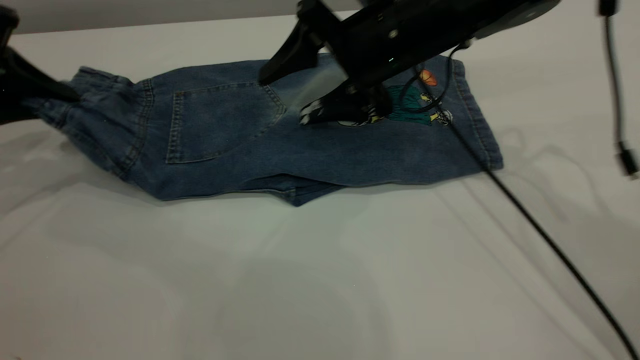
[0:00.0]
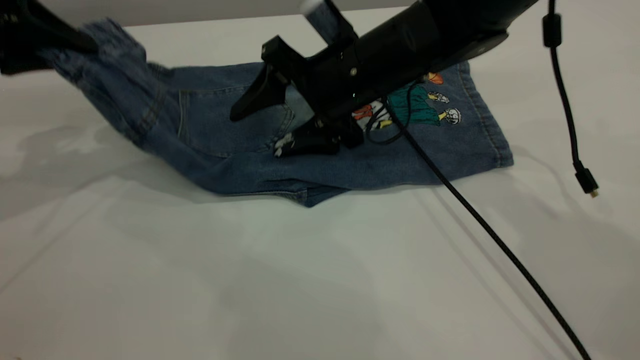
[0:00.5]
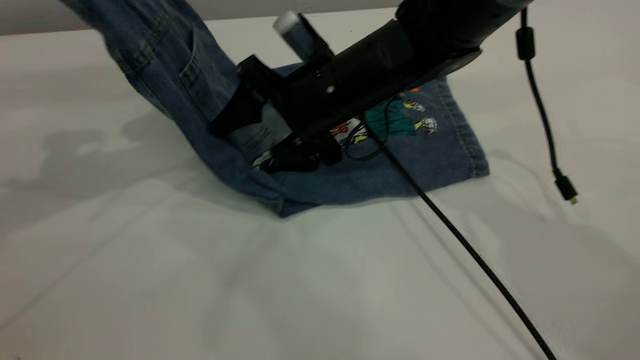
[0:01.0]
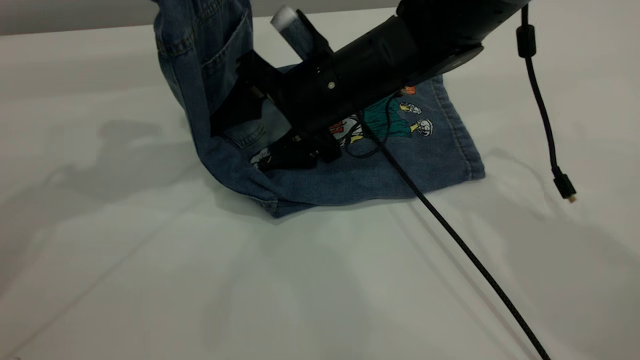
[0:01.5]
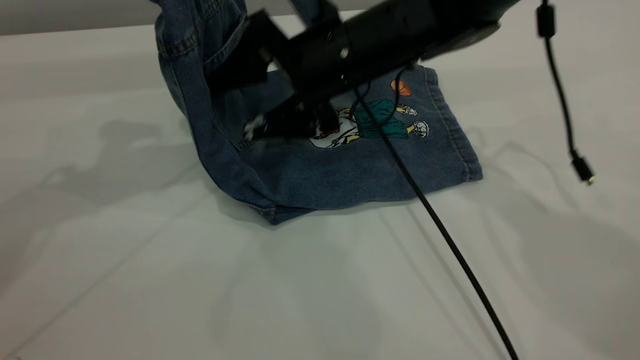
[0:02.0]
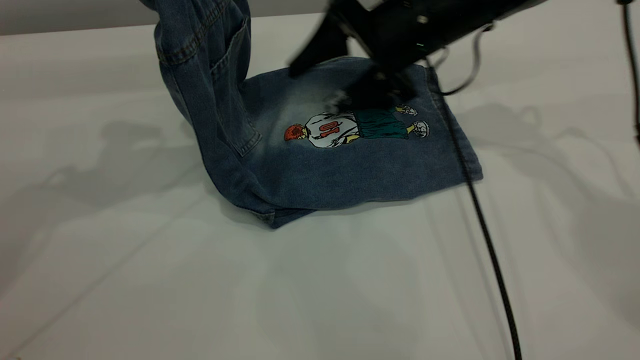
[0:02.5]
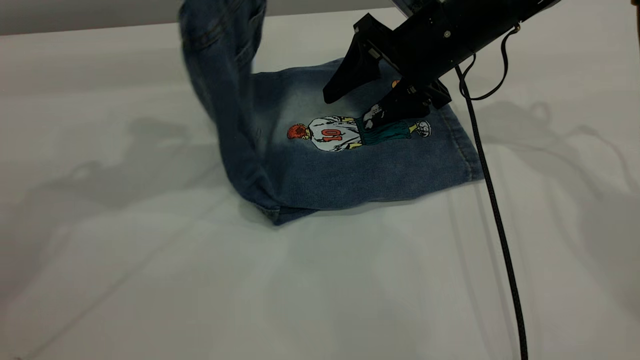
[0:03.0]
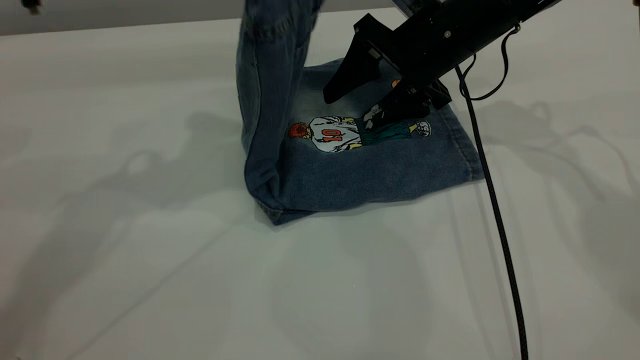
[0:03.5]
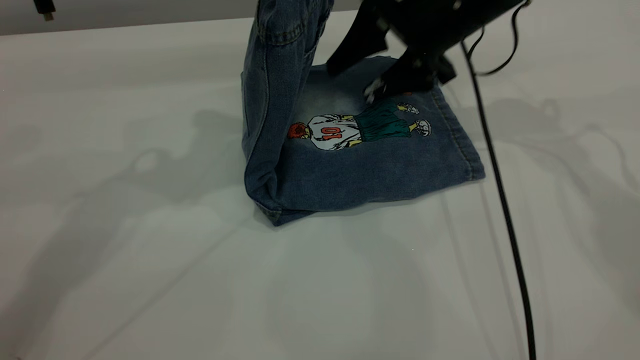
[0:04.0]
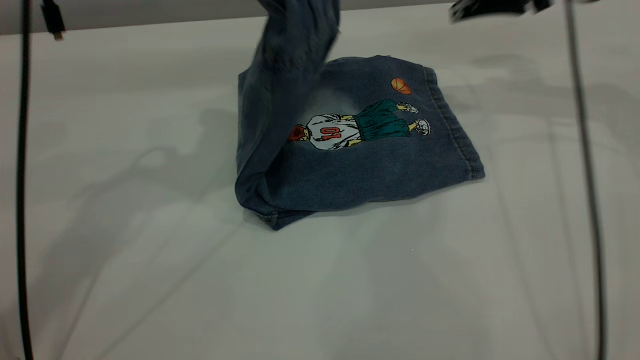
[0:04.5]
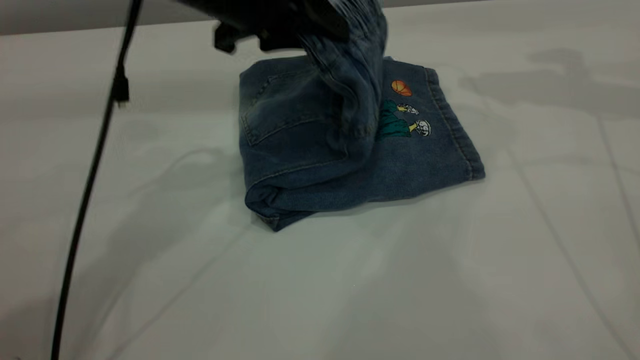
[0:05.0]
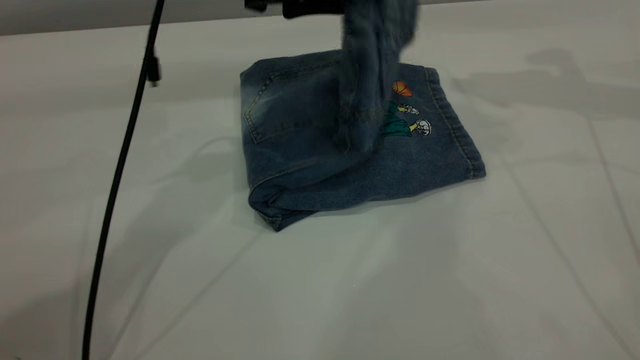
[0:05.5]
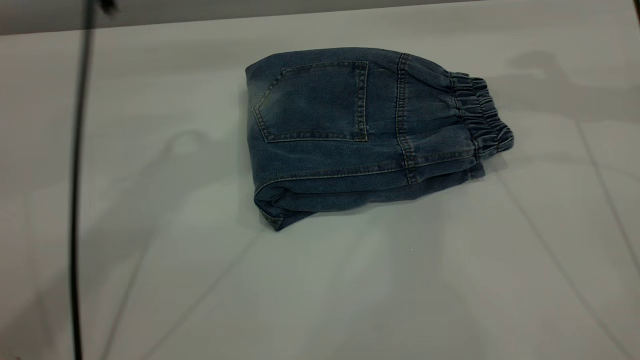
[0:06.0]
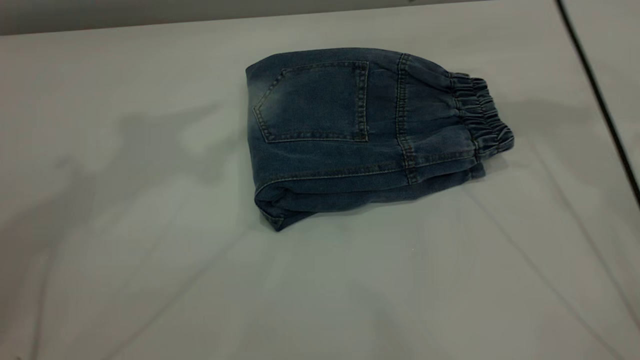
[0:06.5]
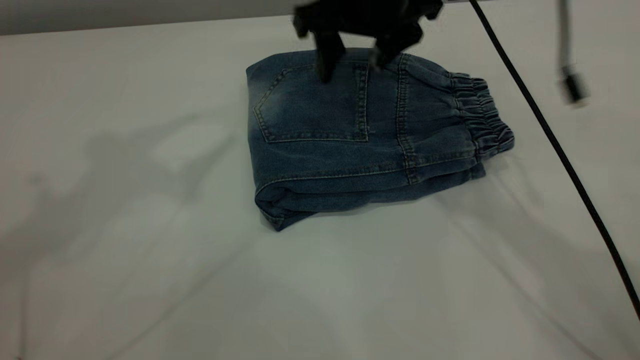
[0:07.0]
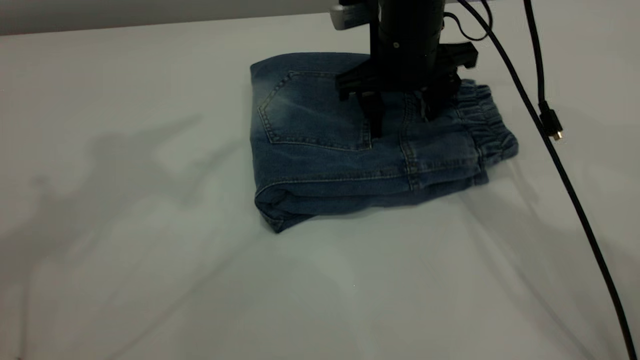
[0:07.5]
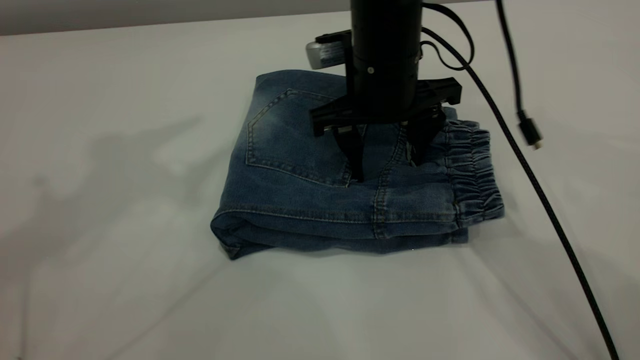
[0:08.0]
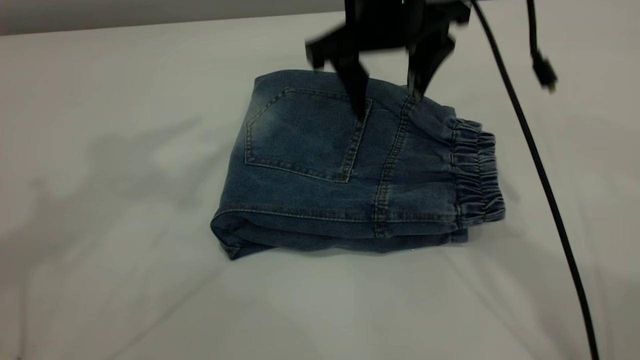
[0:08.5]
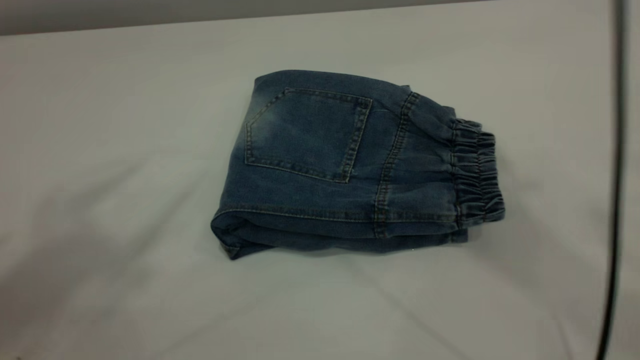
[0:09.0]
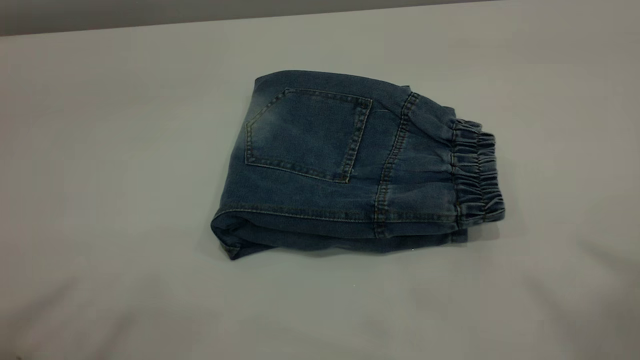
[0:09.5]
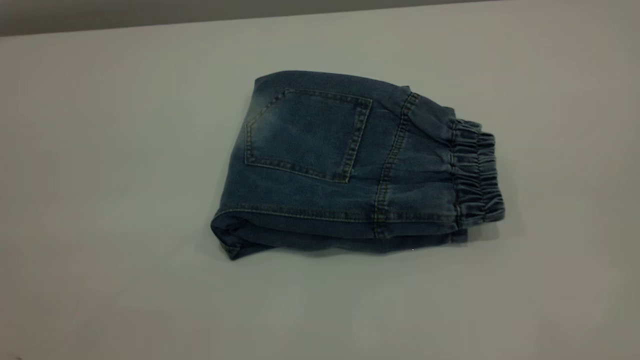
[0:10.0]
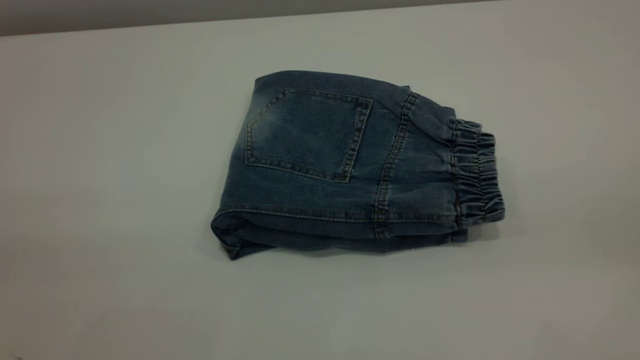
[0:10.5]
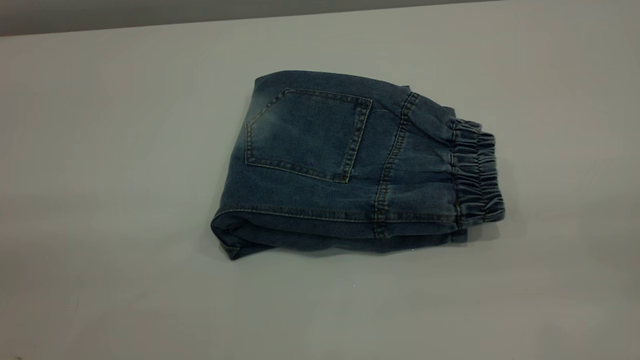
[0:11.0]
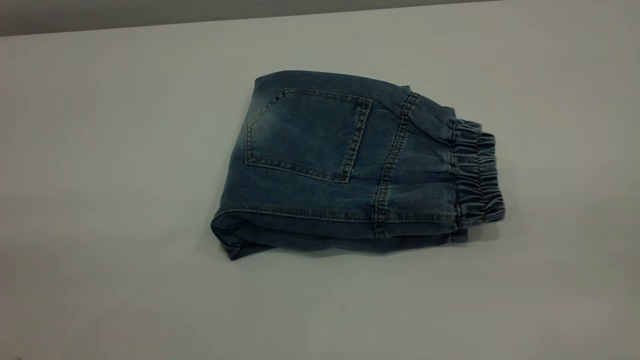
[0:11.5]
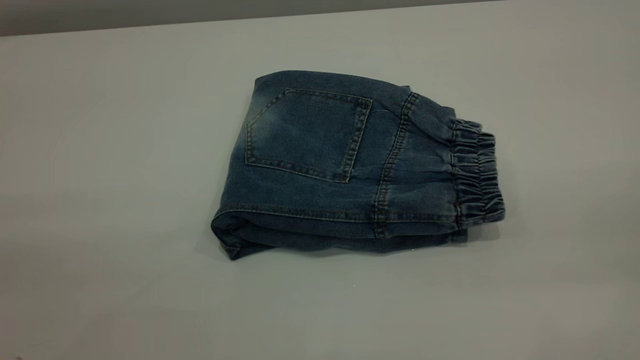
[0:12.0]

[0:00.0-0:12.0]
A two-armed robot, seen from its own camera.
Step, 0:00.0 to 0:06.0: Fold the pants from left to right.
0:00.0 to 0:02.0: The left gripper goes roughly 15 cm upward and to the right.
0:02.0 to 0:04.0: The grippers both shift to the right by approximately 10 cm.
0:04.0 to 0:06.0: The left gripper travels downward and back again, some 10 cm each way, and opens up. The right gripper goes some 20 cm upward and to the right.
0:06.0 to 0:08.0: The left gripper moves upward, to the left and backward, about 20 cm. Meanwhile the right gripper goes some 25 cm to the left and downward.
0:08.0 to 0:10.0: The right gripper travels backward, upward and to the right by about 50 cm; the left gripper moves backward, roughly 30 cm.
